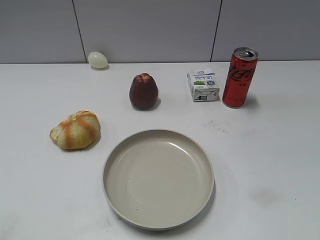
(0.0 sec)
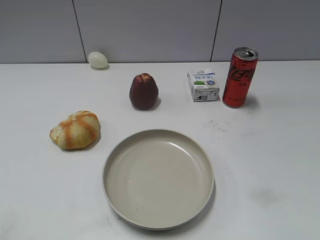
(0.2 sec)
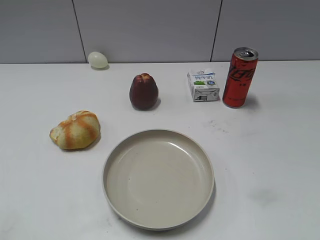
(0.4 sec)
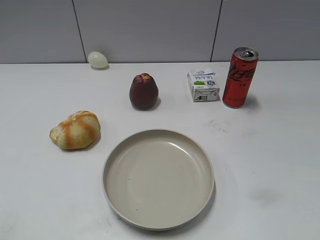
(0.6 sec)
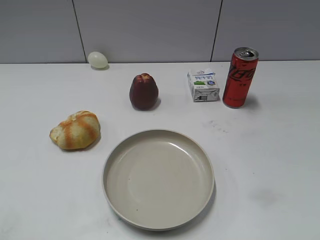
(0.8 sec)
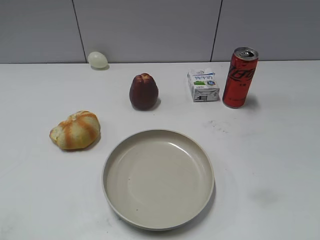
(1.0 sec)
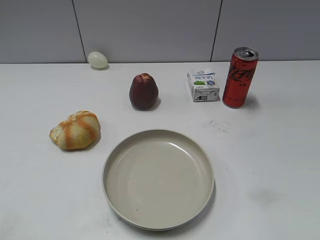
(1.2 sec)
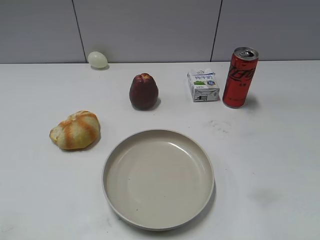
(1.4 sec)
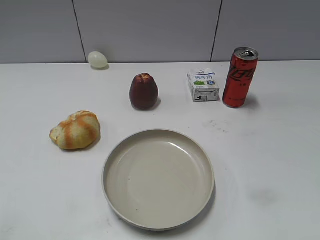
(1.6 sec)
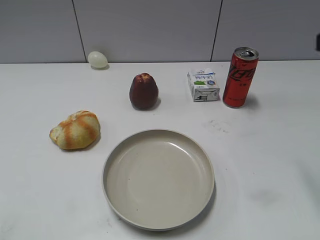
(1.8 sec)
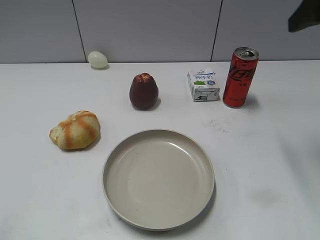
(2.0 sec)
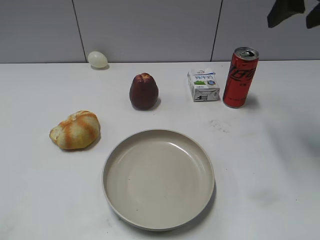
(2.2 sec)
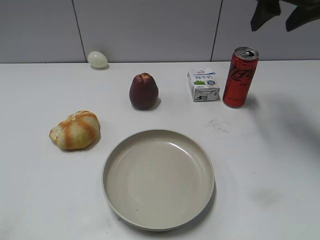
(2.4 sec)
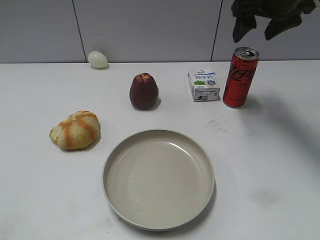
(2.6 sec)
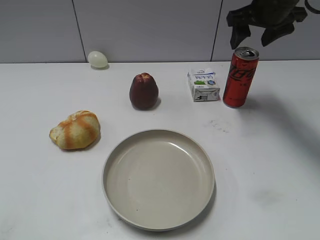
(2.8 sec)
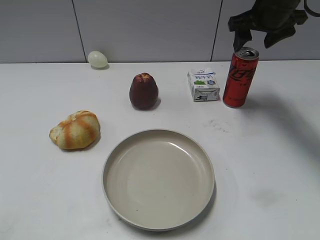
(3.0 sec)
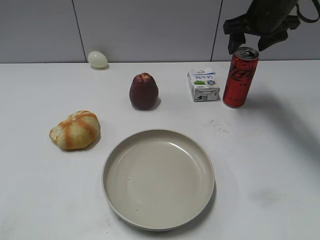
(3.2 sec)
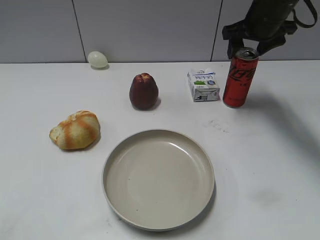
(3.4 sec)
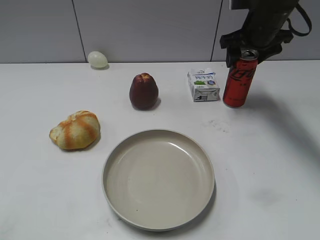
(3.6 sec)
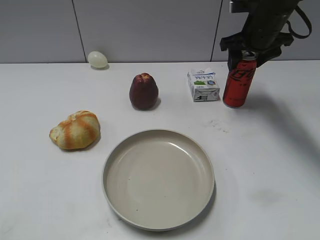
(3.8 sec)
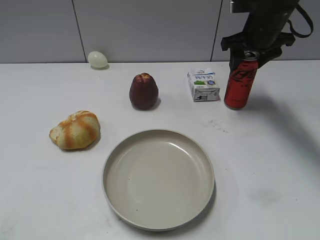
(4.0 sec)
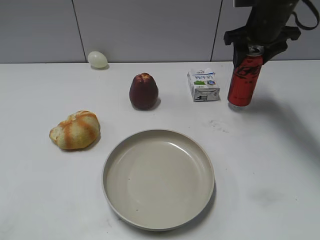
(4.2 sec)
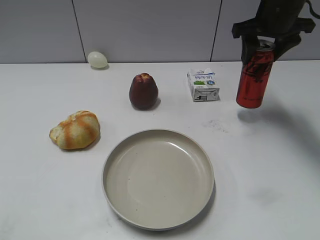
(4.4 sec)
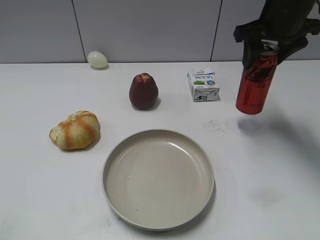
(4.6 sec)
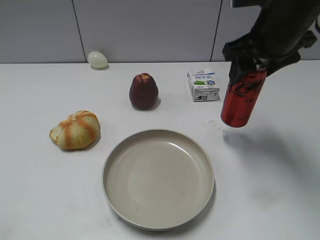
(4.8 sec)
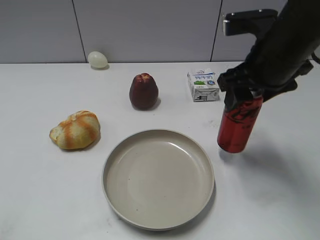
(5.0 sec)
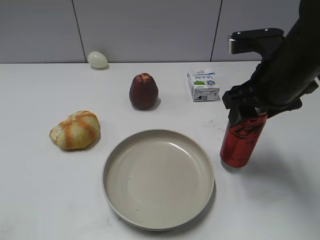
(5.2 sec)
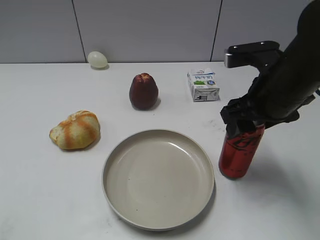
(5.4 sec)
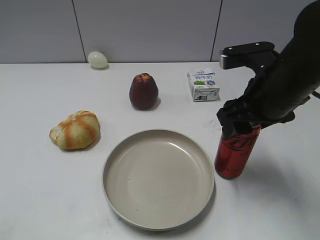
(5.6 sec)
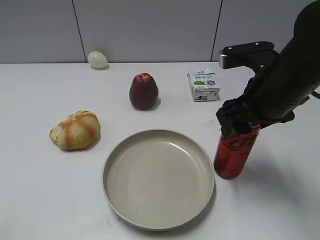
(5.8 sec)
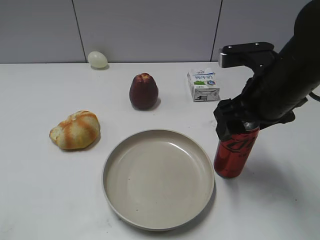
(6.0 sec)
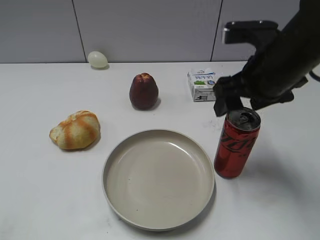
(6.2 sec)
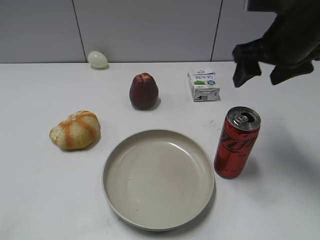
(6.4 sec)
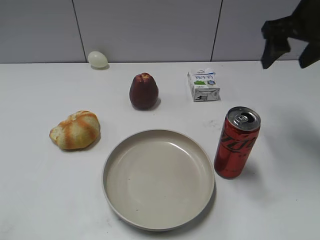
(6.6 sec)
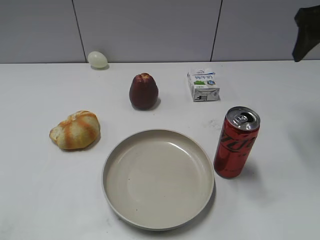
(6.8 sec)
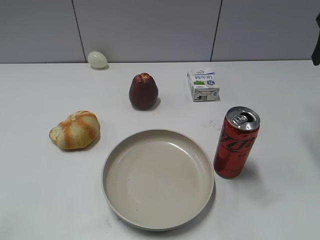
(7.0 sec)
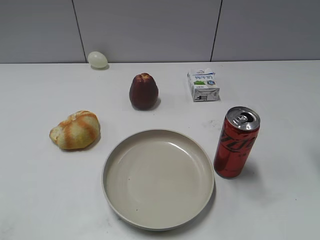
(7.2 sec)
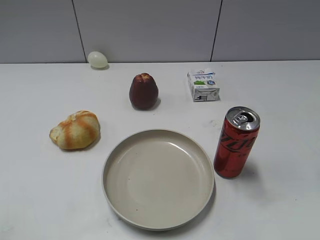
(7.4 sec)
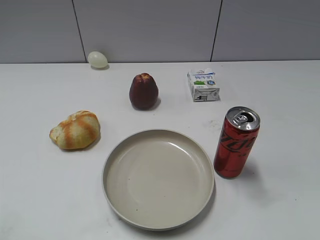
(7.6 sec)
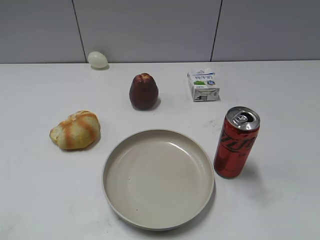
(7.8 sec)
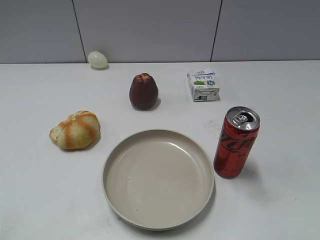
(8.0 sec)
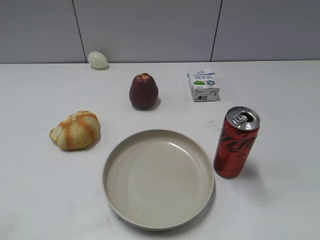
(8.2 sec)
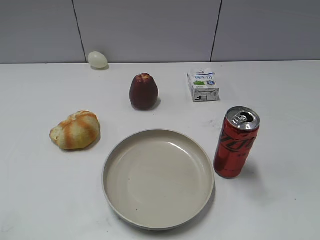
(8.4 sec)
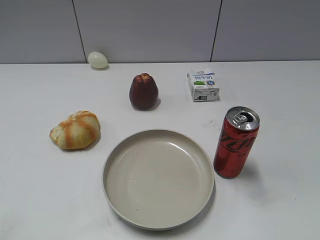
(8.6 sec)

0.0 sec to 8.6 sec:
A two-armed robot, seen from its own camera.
Step, 0.0 sec to 4.0 sec: Grasp the cola with right gripper.
Step, 4.2 sec to 6.2 sec: Place the cola on the table with right gripper.
1.4 sec to 2.8 sec: The right gripper goes roughly 35 cm forward, and opens its fingers.
2.8 sec to 4.4 sec: The right gripper closes up.
4.4 sec to 5.8 sec: The right gripper travels backward by roughly 15 cm.
5.8 sec to 7.2 sec: The right gripper shifts about 20 cm to the right and upward, and opens its fingers.

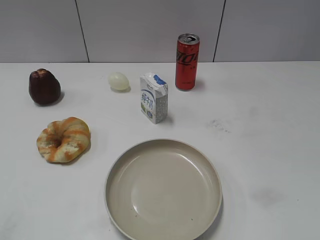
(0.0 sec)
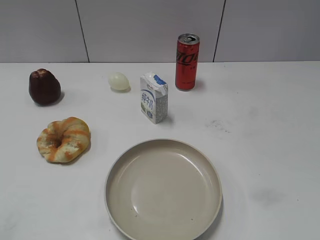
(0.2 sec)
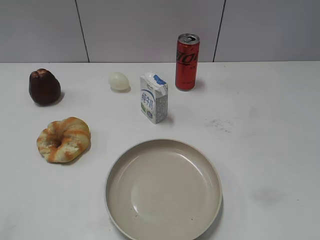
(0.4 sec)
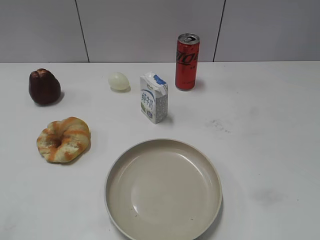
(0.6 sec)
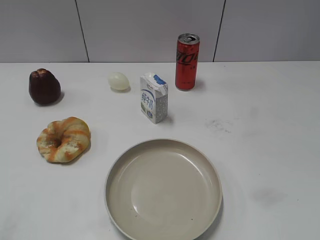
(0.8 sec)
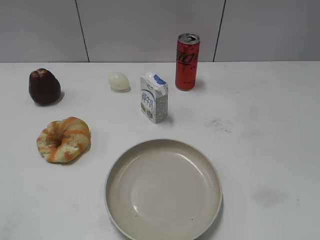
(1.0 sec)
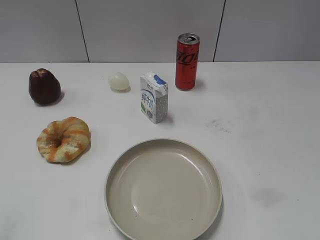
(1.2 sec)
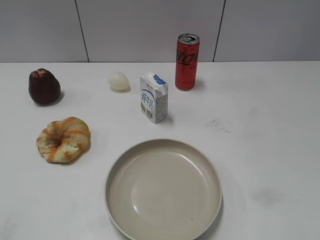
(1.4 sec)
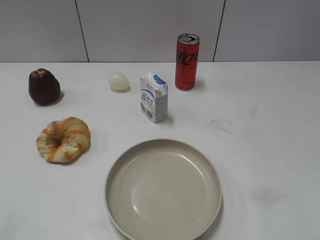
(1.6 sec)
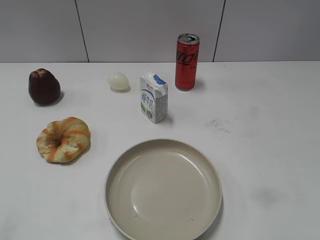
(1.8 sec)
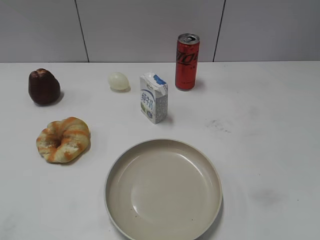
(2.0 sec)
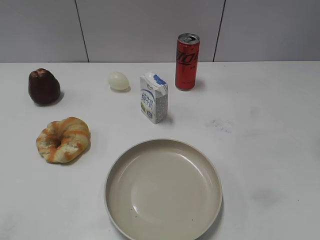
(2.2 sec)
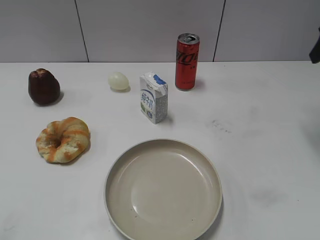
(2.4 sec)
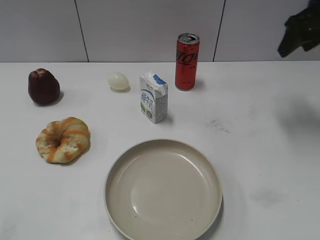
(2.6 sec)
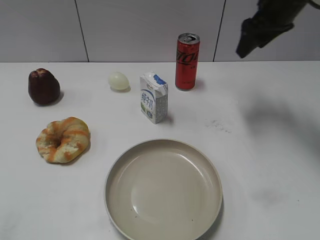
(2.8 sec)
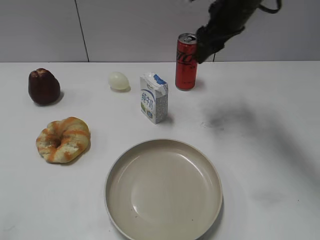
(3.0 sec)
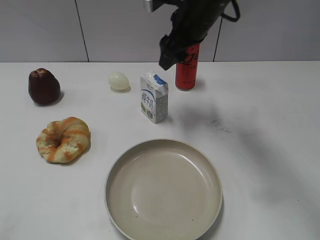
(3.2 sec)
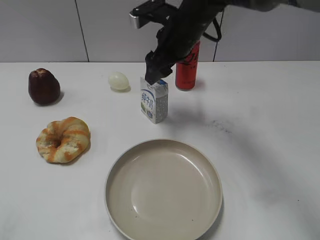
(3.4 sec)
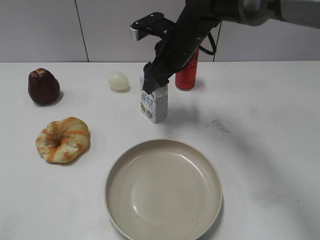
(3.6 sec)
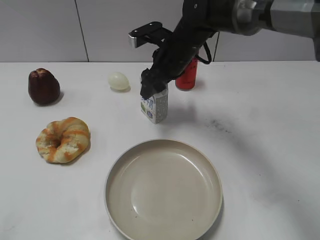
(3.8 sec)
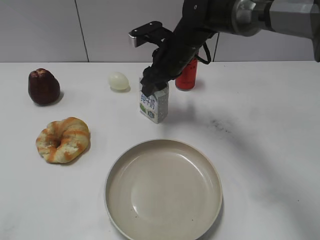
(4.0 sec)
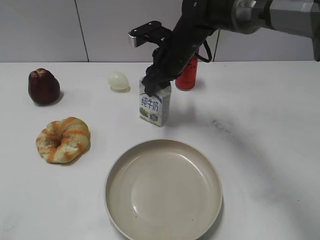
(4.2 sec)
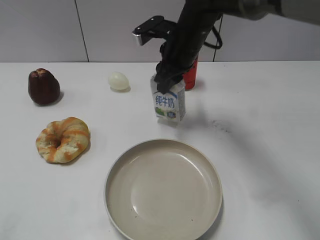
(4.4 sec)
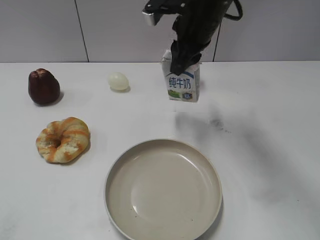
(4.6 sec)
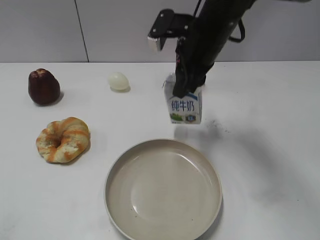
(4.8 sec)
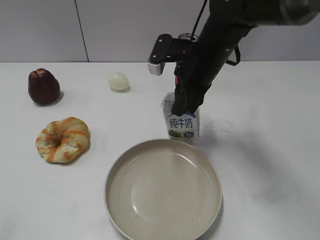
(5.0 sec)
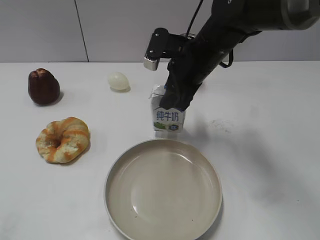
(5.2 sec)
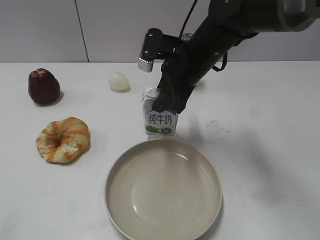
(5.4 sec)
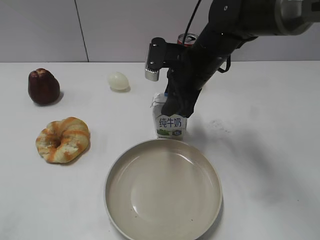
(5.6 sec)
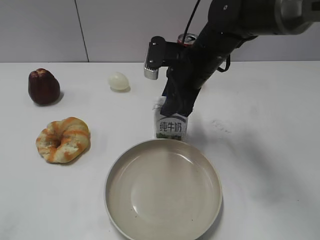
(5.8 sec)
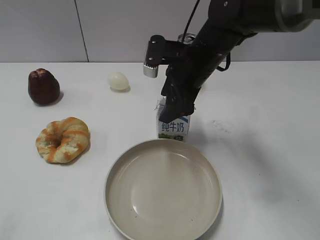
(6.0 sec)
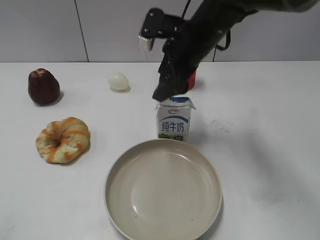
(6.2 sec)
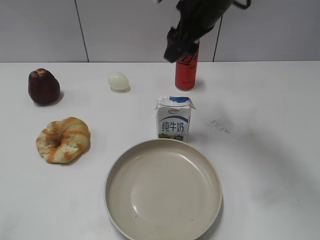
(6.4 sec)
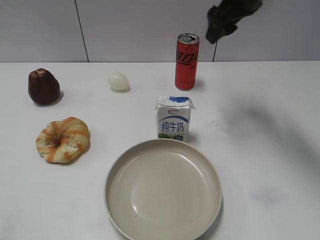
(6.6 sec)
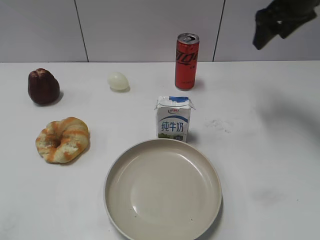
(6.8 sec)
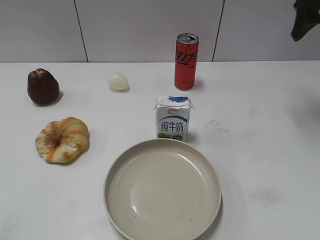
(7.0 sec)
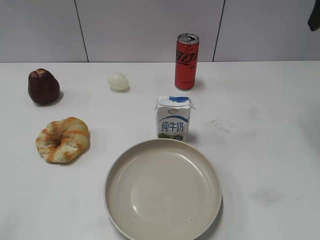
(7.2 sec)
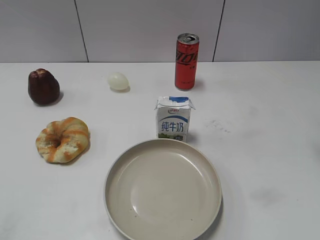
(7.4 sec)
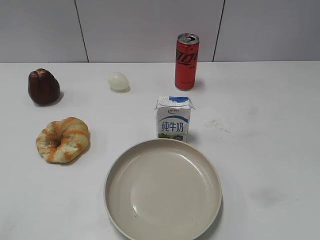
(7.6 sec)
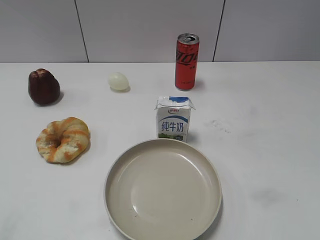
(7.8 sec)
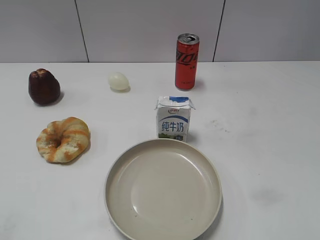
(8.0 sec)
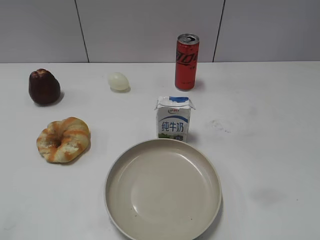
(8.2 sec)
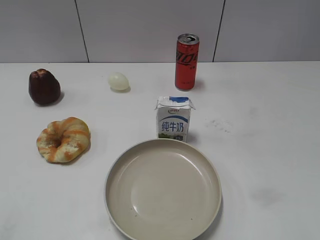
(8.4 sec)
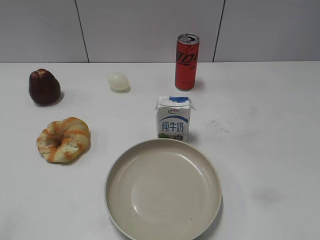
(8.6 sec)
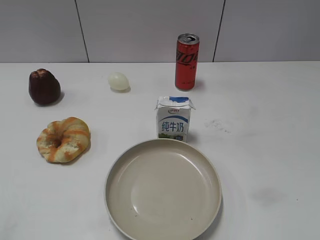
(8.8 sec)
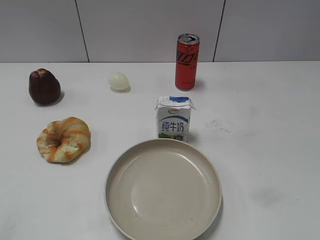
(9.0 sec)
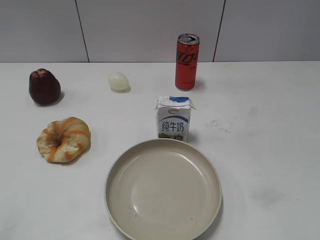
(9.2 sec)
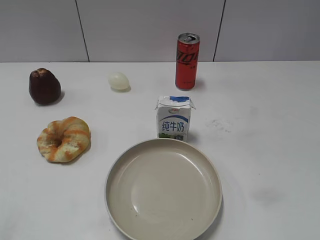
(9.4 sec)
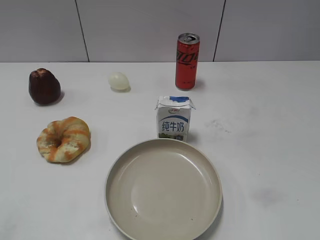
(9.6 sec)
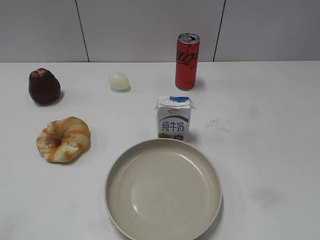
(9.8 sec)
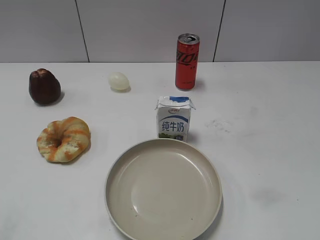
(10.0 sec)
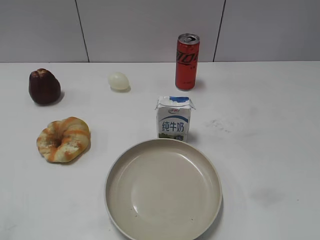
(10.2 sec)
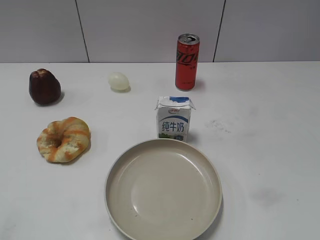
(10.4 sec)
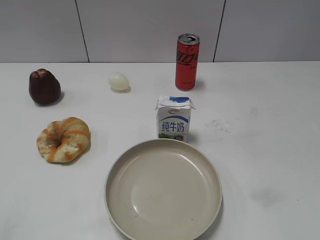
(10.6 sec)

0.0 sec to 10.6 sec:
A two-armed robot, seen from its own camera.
Step, 1.2 sec to 4.0 sec: Grasp the milk with right gripper.
Step, 4.4 sec to 6.0 sec: Place the milk on the table with right gripper.
1.6 sec to 3.0 sec: The right gripper goes some 40 cm forward and to the left.
3.0 sec to 4.6 sec: The right gripper goes approximately 5 cm to the left, moves about 10 cm downward and comes back, and closes its fingers.
4.6 sec to 6.0 sec: The right gripper heads downward, covering approximately 5 cm, and opens its fingers.
6.0 sec to 7.6 sec: The right gripper heads to the right, backward and upward, covering roughly 30 cm.
